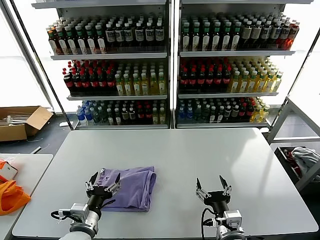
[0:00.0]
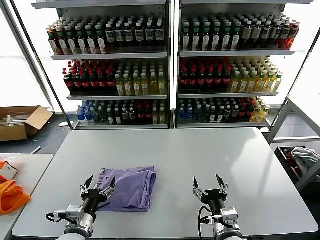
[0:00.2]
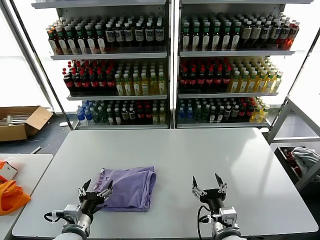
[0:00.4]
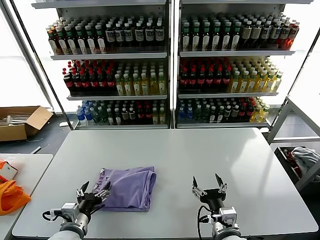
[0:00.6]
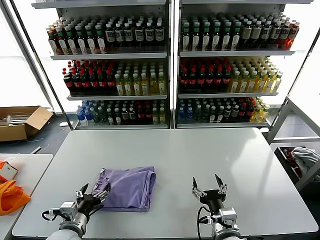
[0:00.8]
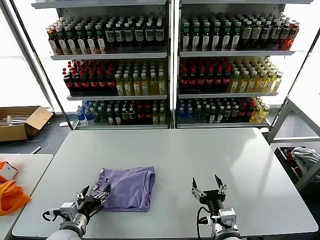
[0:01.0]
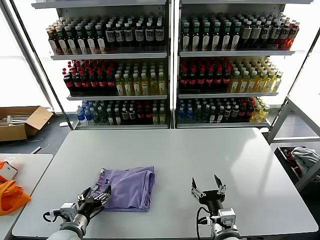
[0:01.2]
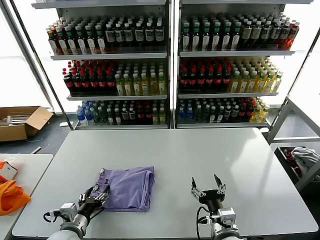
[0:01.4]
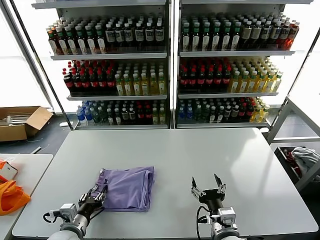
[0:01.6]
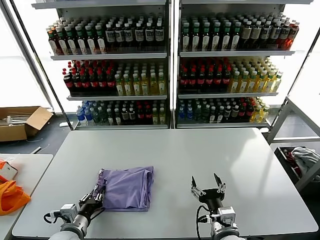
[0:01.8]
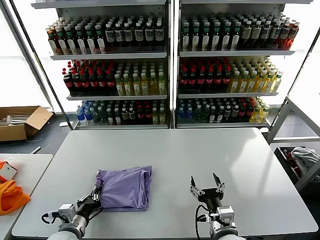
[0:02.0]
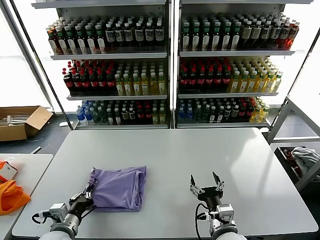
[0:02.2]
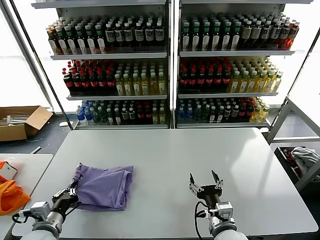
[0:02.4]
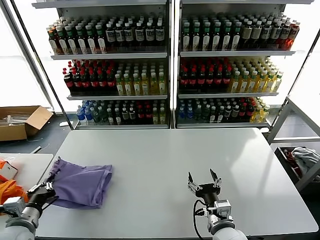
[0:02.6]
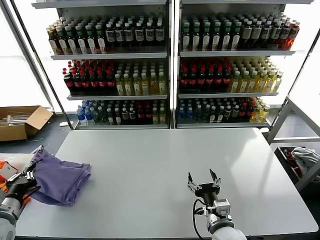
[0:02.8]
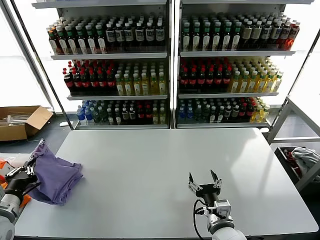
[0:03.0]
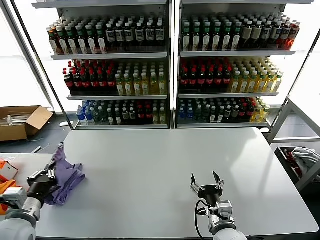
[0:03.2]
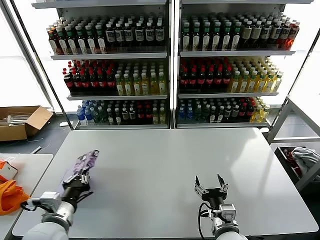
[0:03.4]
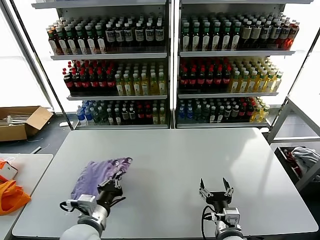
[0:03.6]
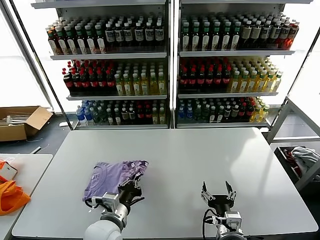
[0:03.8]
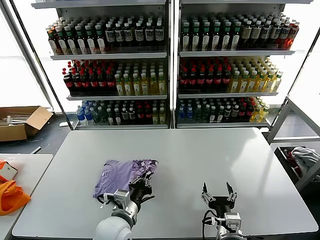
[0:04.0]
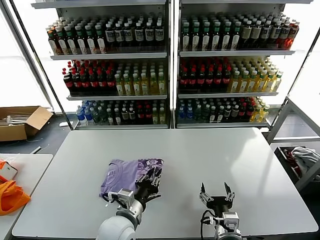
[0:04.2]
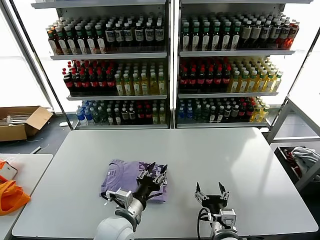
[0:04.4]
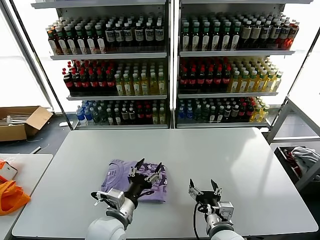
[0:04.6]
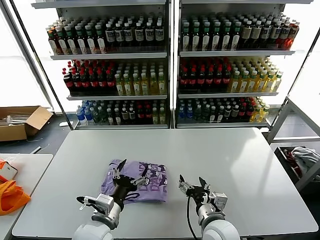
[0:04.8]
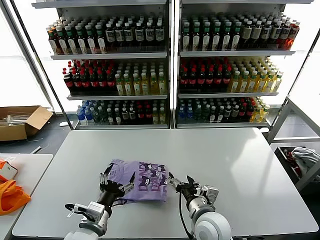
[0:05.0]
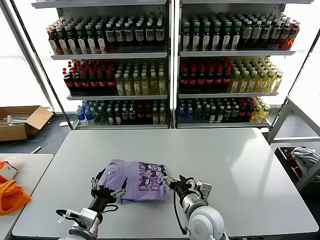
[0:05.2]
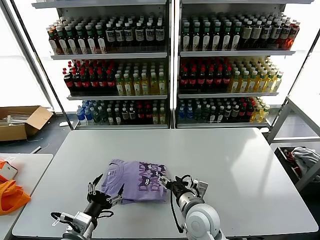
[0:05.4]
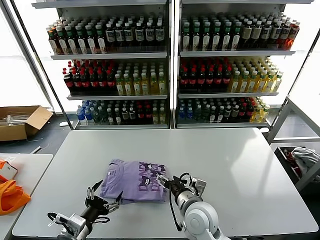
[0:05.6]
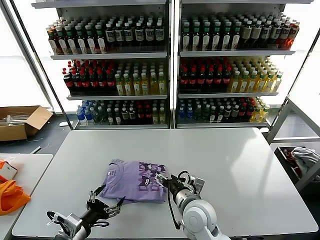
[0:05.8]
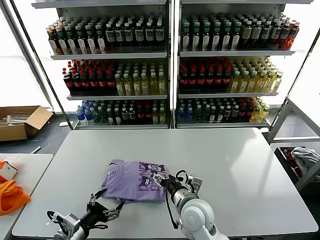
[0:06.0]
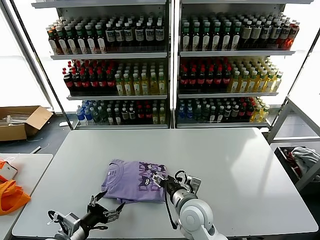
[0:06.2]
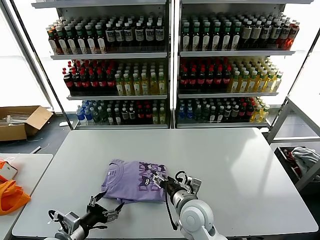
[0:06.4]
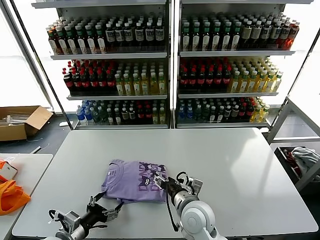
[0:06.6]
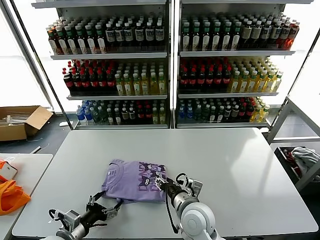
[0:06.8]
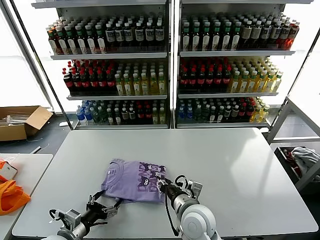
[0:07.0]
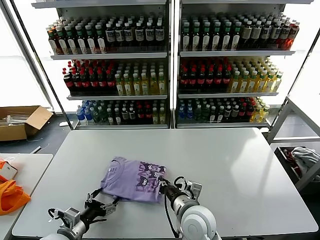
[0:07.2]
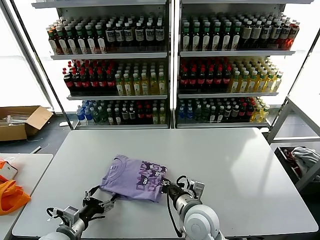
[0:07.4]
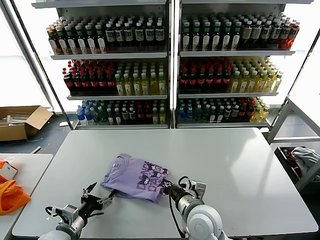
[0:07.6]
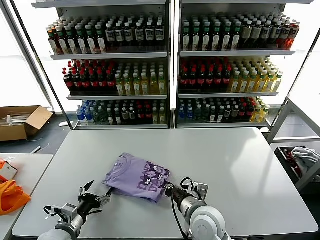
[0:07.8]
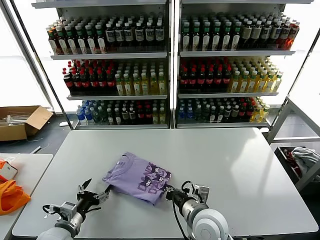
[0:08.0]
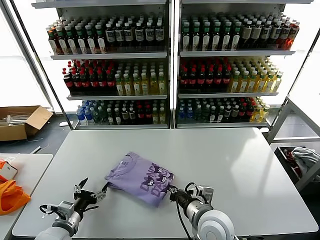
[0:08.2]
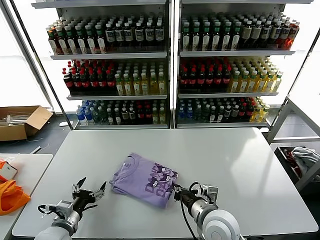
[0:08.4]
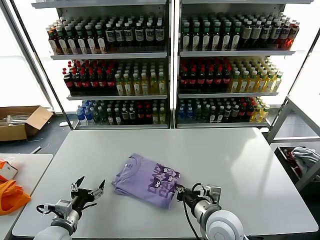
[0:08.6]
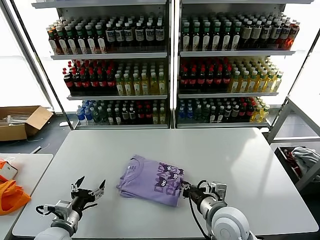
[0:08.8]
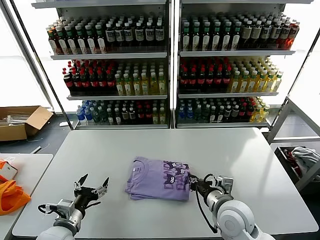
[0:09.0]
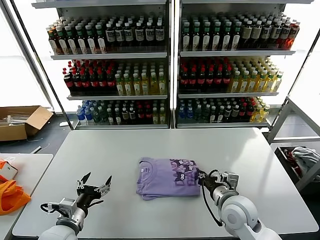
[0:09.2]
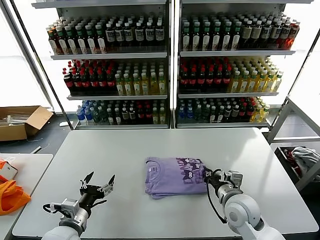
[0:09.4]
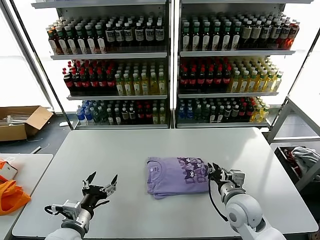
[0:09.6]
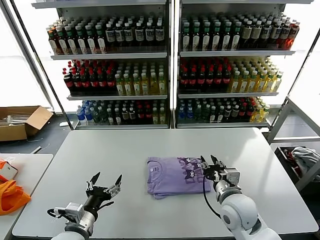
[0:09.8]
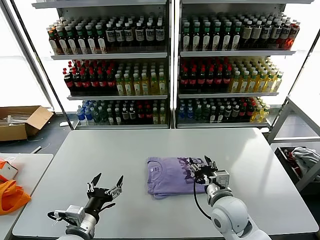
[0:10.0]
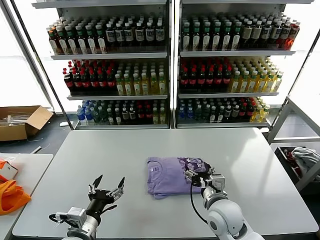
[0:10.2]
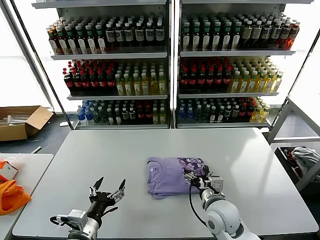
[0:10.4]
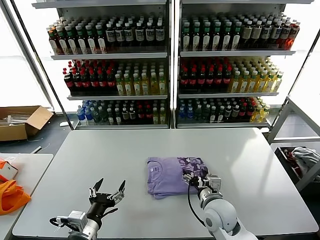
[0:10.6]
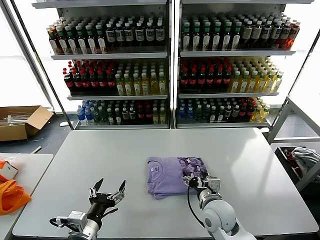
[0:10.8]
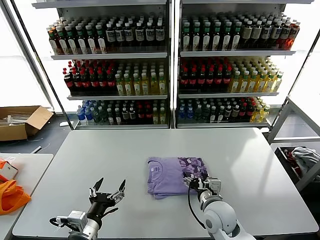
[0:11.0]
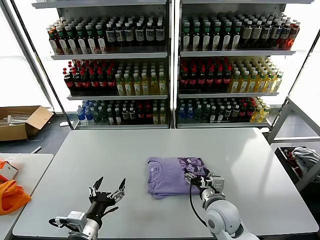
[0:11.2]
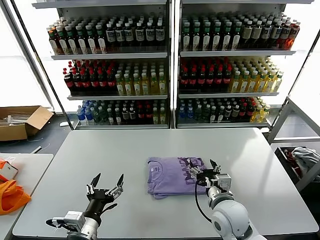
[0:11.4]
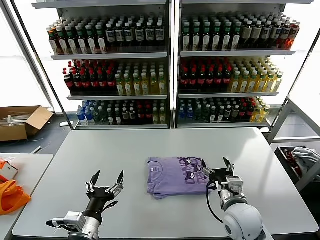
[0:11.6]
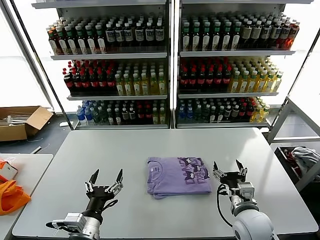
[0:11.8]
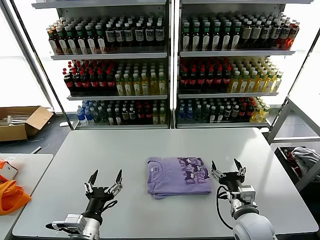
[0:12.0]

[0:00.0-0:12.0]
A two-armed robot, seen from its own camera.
Task of the whole recording: fold and organize the clothes.
Step, 0:00.0 to 0:04.2: Flip the folded clothes over with left gripper.
0:00.0 to 0:01.6: The left gripper heads to the left, covering approximately 5 cm.
0:01.6 to 0:03.0: The left gripper shifts some 20 cm to the left and upward, and closes its fingers.
0:03.0 to 0:04.4: The left gripper is displaced to the right by roughly 30 cm, and opens.
0:04.4 to 0:06.0: The left gripper is displaced to the left by about 15 cm, and opens its fingers. Meanwhile the right gripper heads forward and to the left, covering roughly 15 cm.
0:06.0 to 0:07.6: The left gripper shifts by about 5 cm; the right gripper closes its fingers.
0:07.6 to 0:09.0: The right gripper heads to the right, covering about 10 cm.
0:09.0 to 0:10.4: The right gripper opens up, while the left gripper heads to the right, covering roughly 5 cm.
0:10.4 to 0:12.0: The right gripper shifts approximately 5 cm to the right.

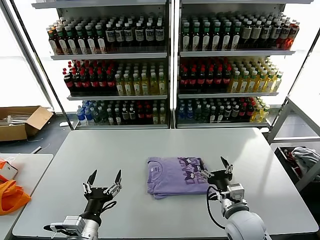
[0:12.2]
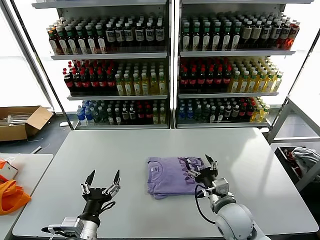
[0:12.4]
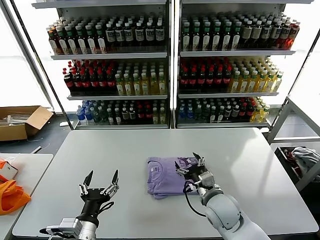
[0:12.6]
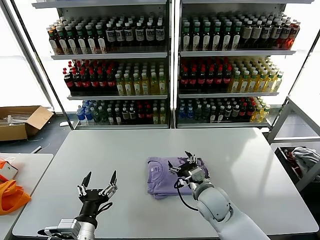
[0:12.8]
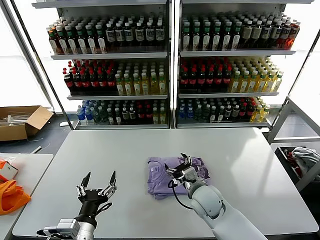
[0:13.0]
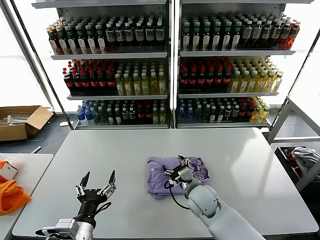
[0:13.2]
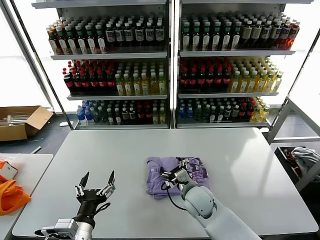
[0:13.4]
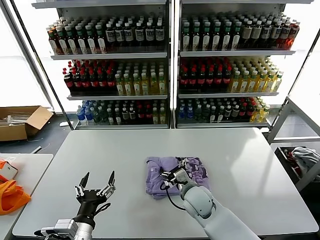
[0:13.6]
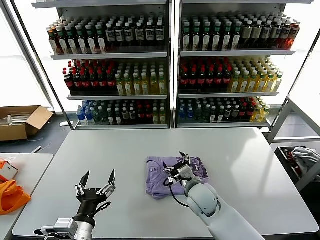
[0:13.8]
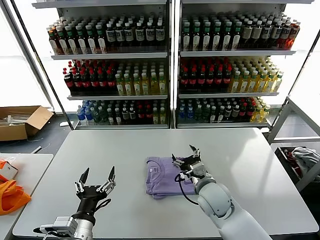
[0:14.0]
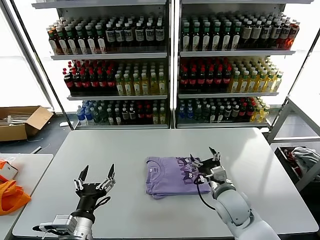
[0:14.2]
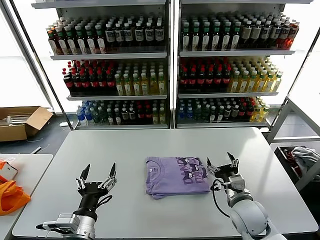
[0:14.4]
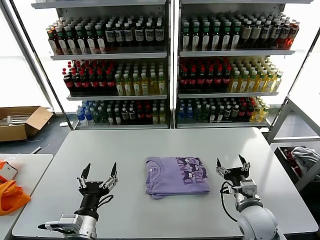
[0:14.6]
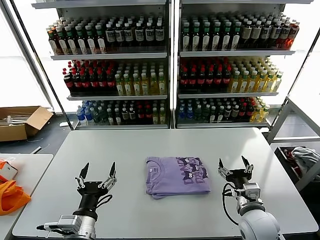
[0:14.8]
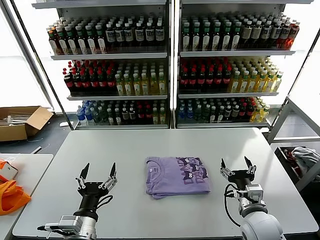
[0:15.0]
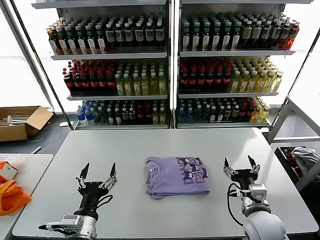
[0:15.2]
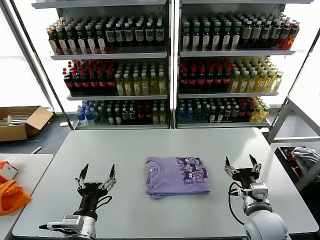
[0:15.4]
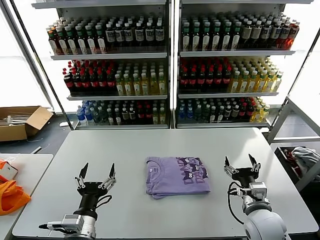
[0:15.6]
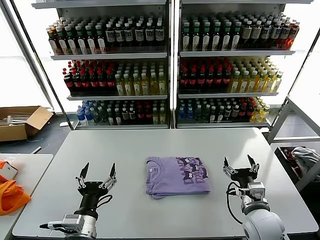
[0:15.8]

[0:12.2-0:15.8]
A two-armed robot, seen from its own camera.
Task of the whole recording: fold and organize the clothes.
0:12.2 to 0:14.0: The right gripper moves forward and to the left, some 15 cm.
0:14.0 to 0:15.8: The right gripper goes approximately 15 cm to the right and backward.

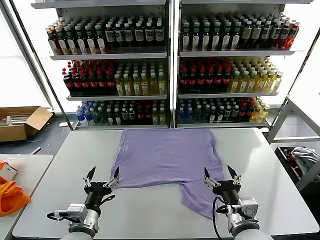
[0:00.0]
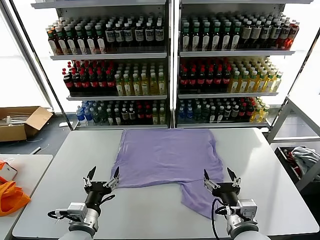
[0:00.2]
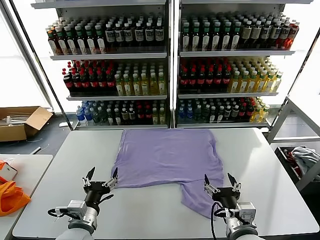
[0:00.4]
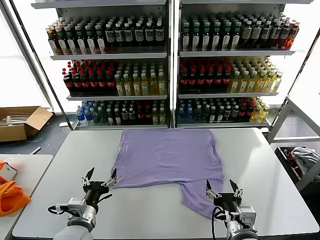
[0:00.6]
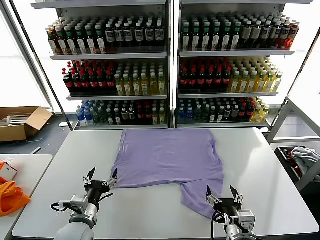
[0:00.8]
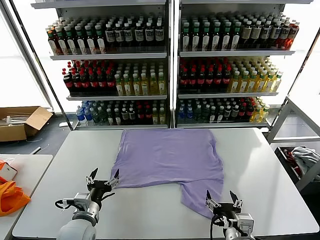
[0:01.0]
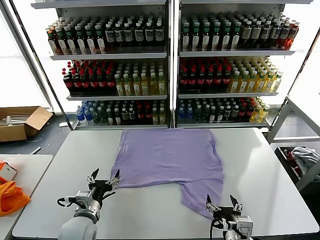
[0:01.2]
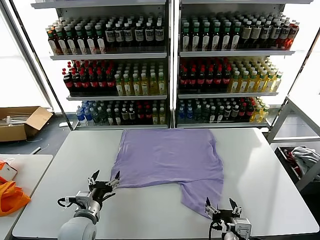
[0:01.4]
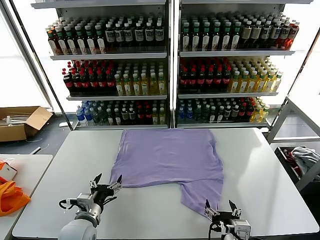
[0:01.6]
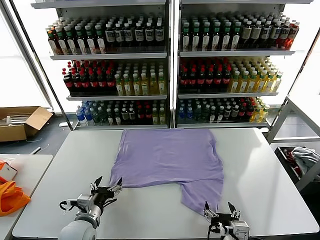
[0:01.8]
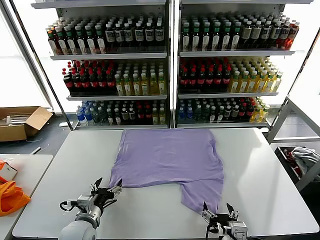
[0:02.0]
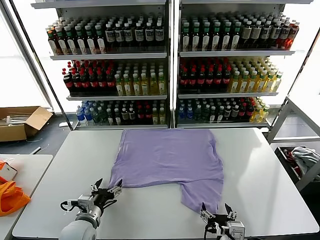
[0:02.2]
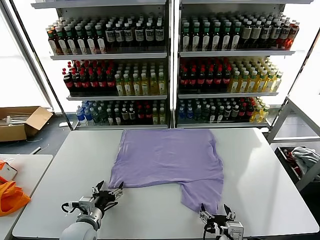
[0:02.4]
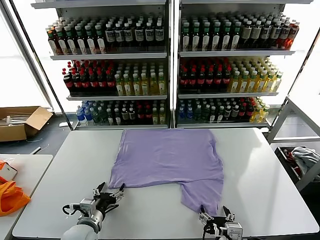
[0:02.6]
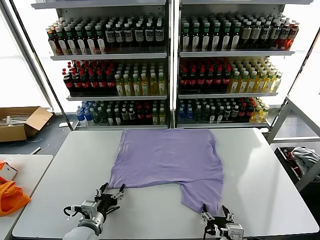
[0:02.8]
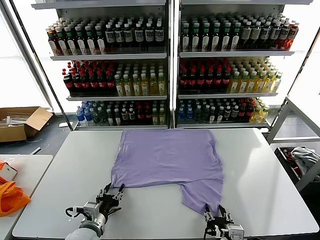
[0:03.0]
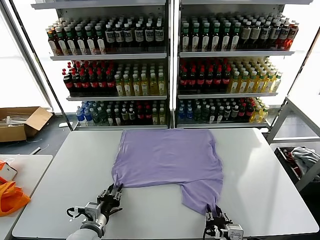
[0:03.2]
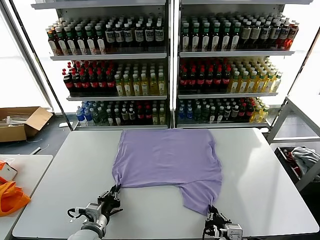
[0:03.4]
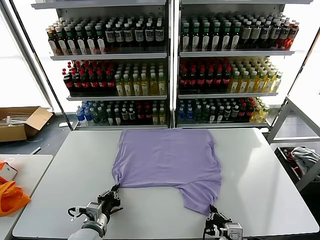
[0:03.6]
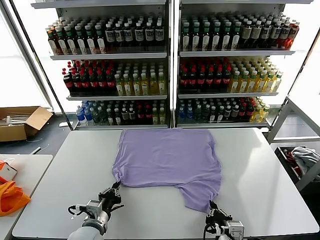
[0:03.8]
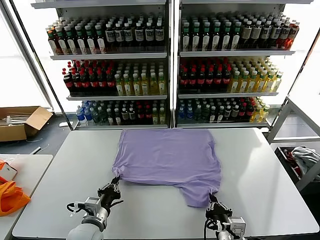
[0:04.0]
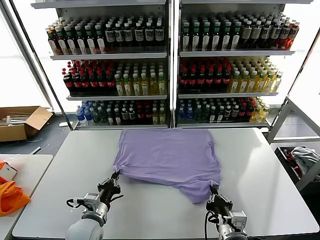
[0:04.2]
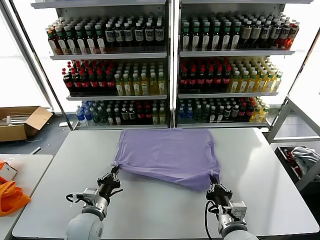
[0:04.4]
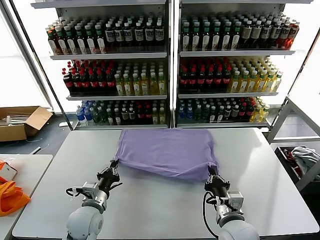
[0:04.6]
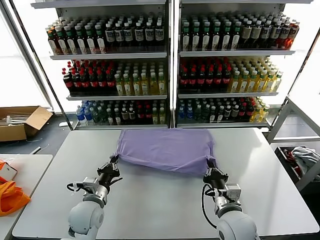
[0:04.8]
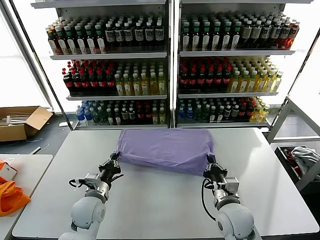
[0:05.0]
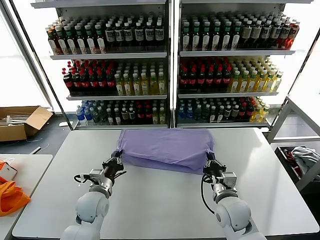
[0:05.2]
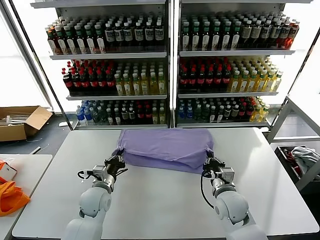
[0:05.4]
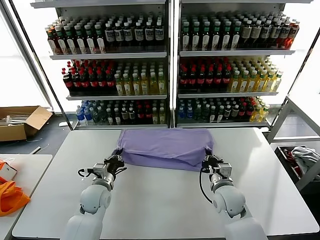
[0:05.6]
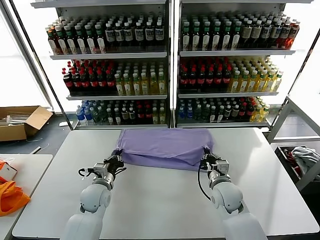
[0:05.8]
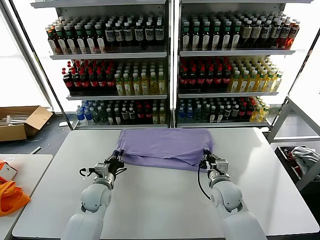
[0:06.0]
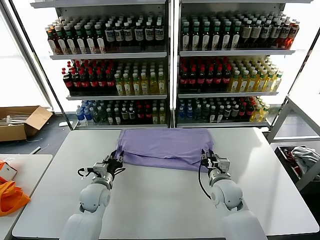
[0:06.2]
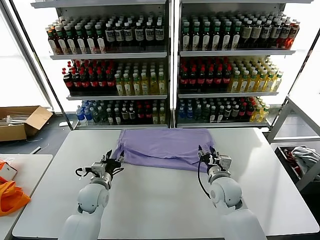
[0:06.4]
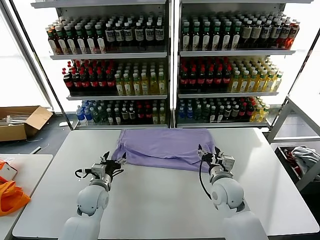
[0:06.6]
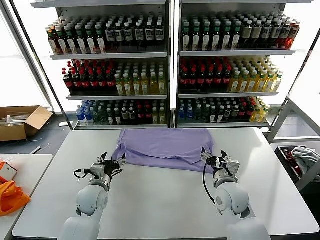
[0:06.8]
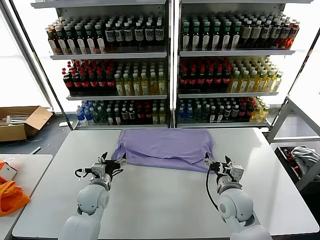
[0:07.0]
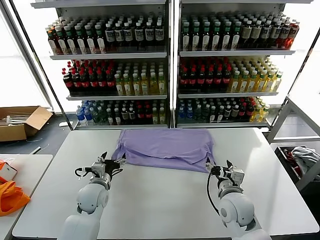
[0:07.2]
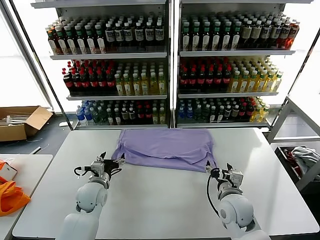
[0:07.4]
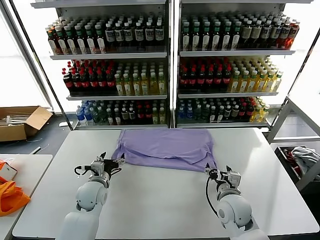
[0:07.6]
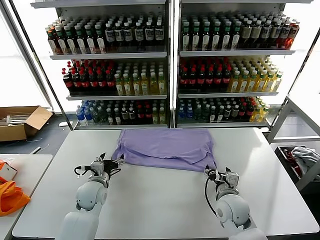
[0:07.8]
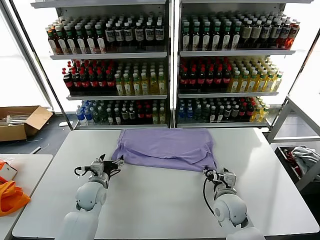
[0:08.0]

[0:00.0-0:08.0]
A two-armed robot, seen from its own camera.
Task of the whole recording: fold and organize the clothes.
Step, 0:00.0 to 0:03.8: use both grippers simultaneously to clamp the lower edge of the clothing fabric.
Step, 0:04.0 to 0:06.2: use both grippers to drag the lower edge of the fabric forward and fold it over the upper edge.
0:01.6 to 0:03.2: The right gripper closes its fingers. The left gripper closes its fingers.
0:03.2 to 0:04.8: The right gripper heads forward, covering about 10 cm. Meanwhile the left gripper shifts about 10 cm forward, and closes its fingers.
0:04.8 to 0:06.4: The two grippers go about 10 cm forward. The left gripper opens. The right gripper opens up.
0:06.4 to 0:08.0: The right gripper moves about 5 cm.
